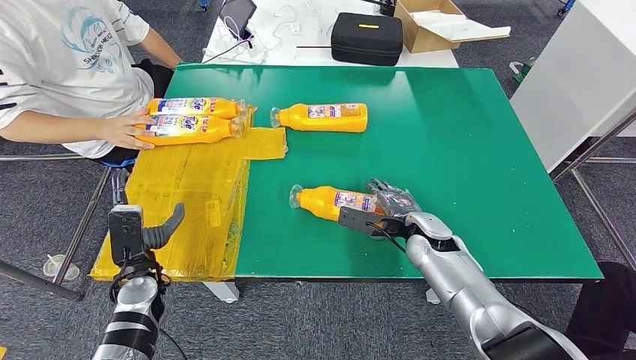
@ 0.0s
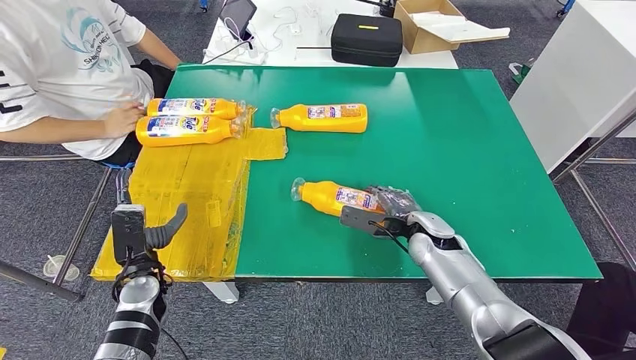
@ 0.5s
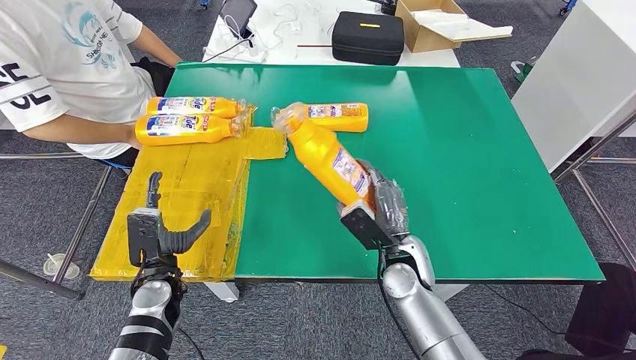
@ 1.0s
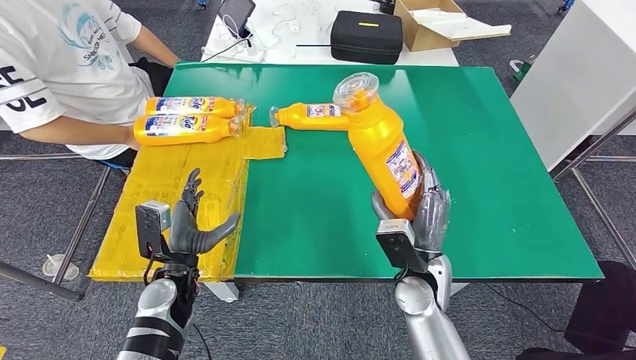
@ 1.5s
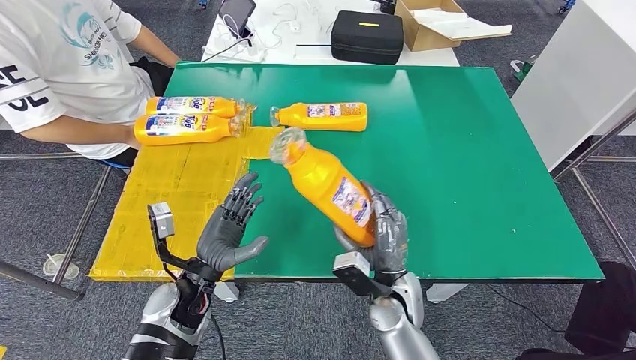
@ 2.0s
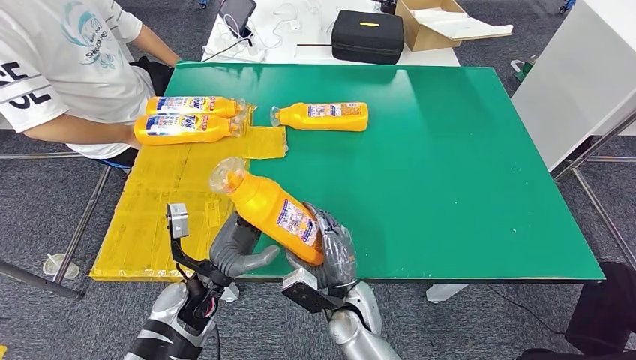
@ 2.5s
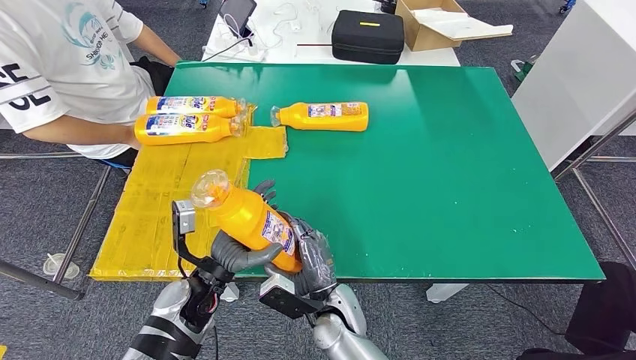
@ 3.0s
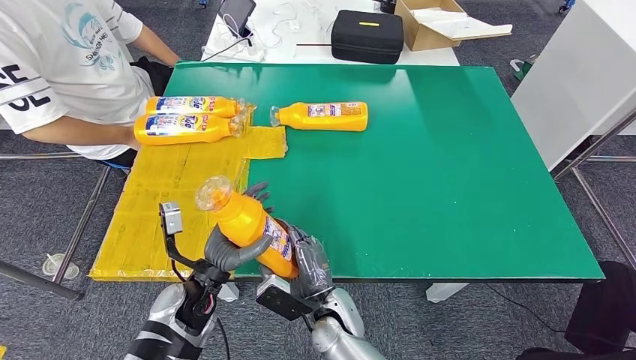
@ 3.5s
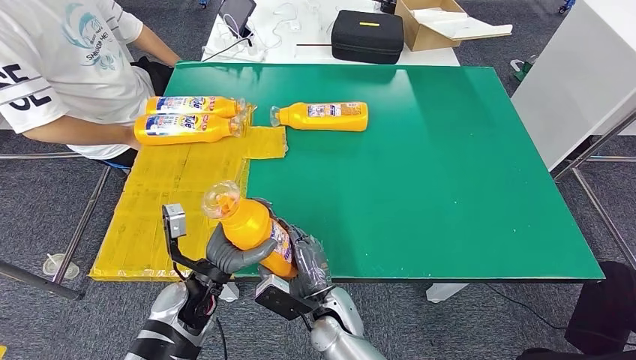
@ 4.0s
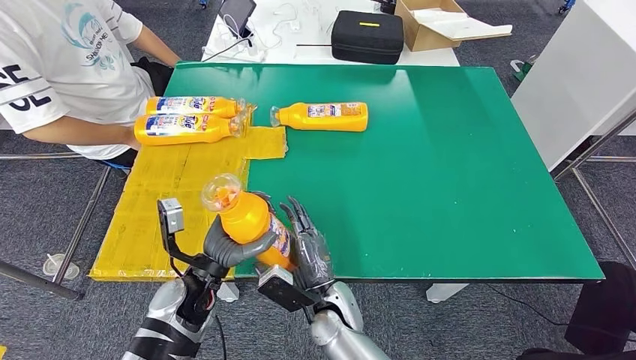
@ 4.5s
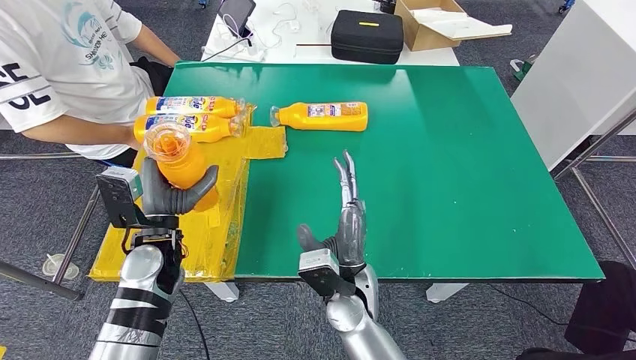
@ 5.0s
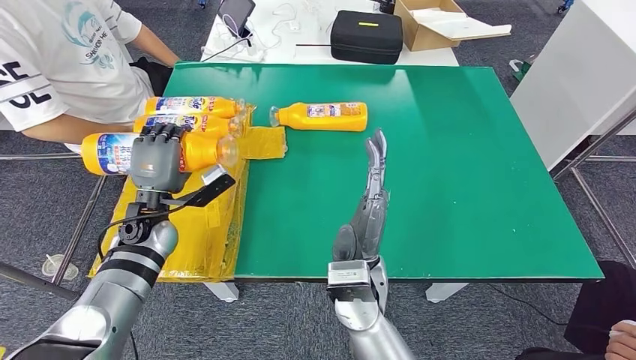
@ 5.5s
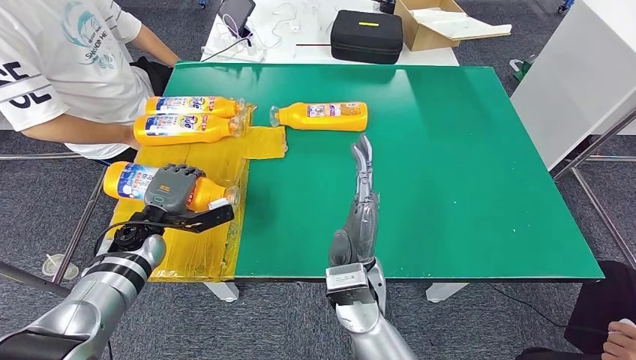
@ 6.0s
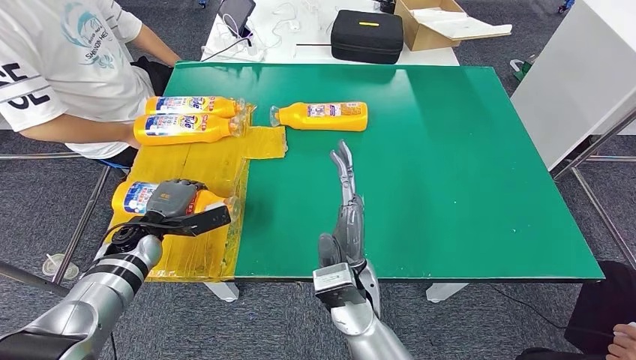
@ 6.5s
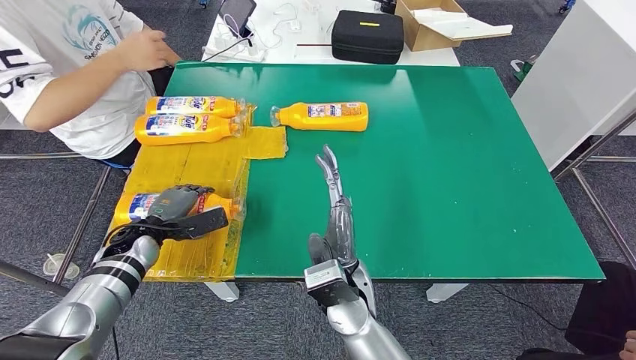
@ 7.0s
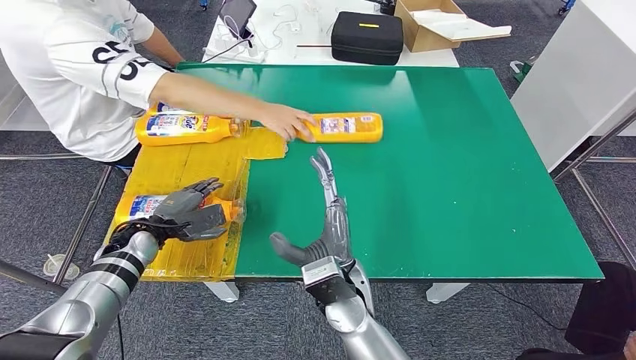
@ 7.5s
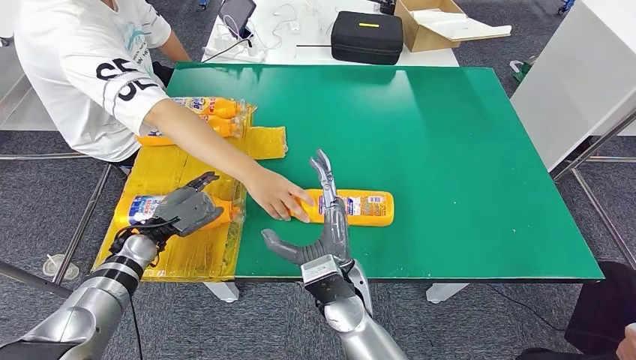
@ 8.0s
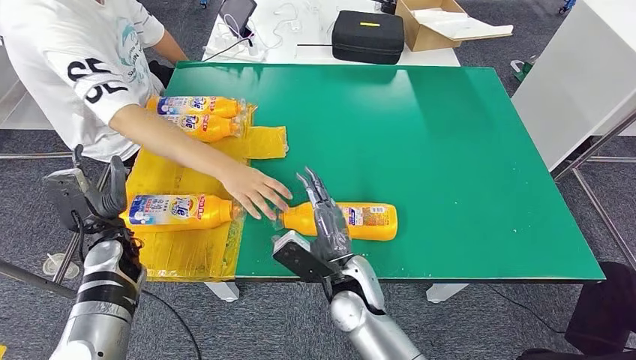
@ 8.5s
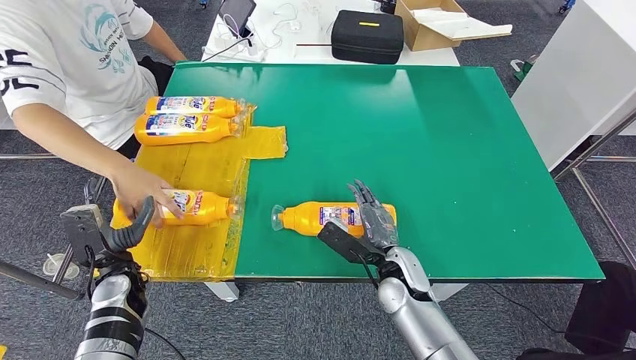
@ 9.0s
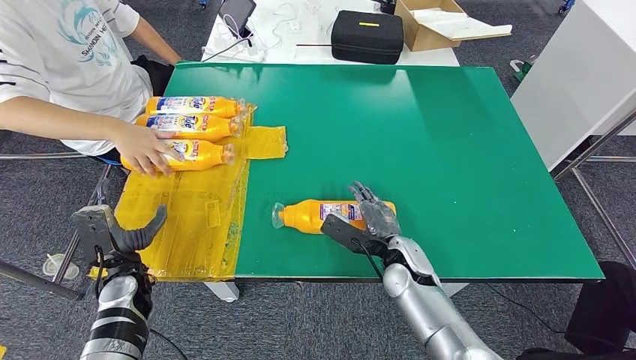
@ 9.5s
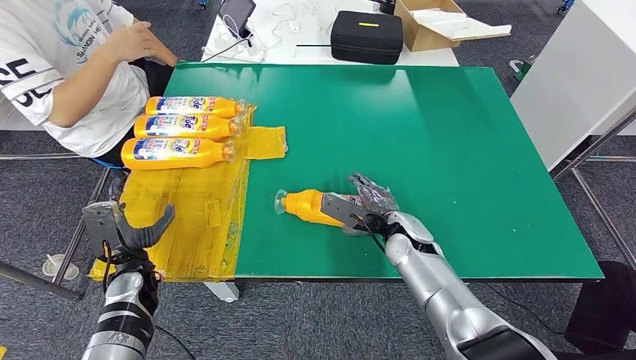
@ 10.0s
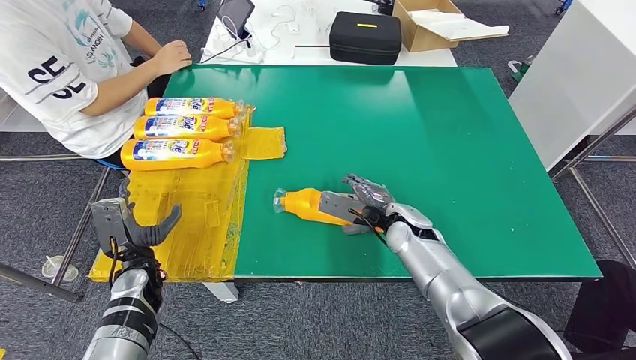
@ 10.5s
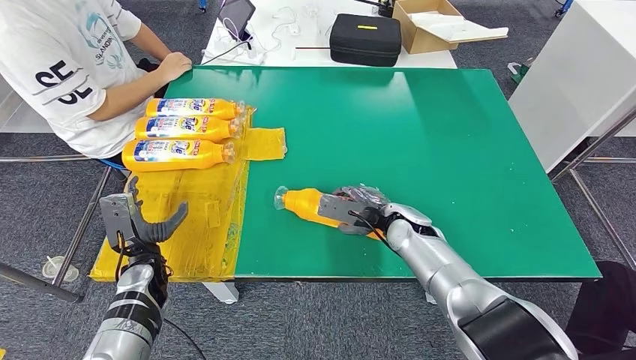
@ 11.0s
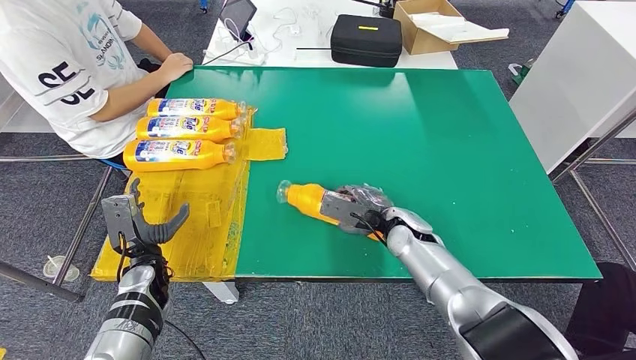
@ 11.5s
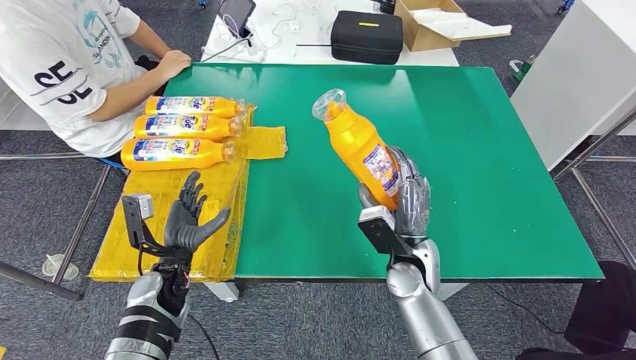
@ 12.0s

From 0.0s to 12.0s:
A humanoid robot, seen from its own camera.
Step, from 0.0s to 3.0s: Pick up the fast-moving consumer goods bottle from the table.
Step, from 3.5s to 9.5s: Flip the fast-moving consumer goods bottle to the front side.
From 2.0s to 4.0s: The right hand goes about 10 cm to the left.
From 4.0s to 6.0s: The right hand is displaced upward by roughly 15 cm; the left hand travels to the left and forward by about 20 cm.

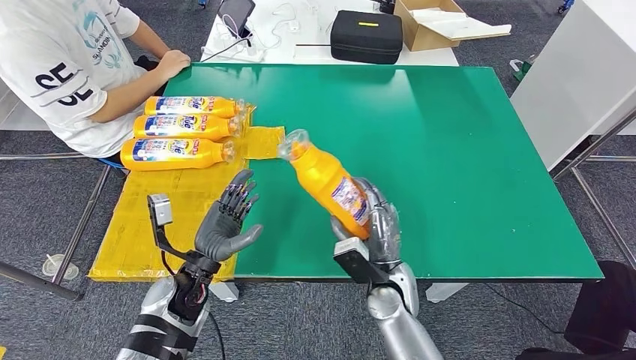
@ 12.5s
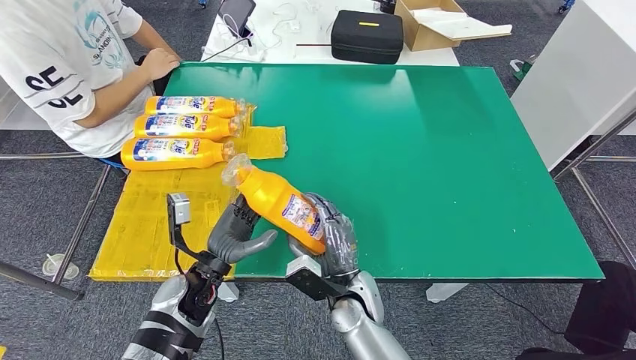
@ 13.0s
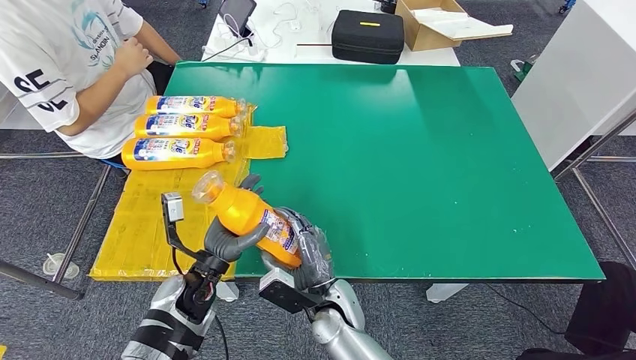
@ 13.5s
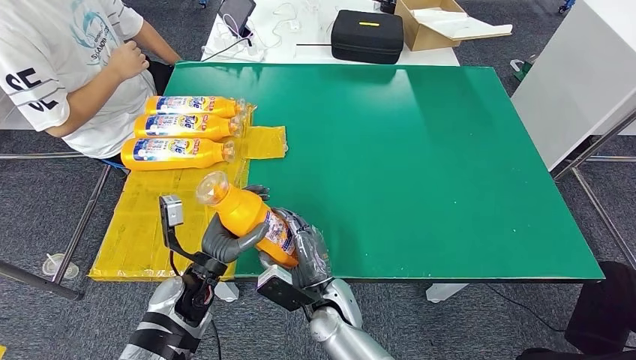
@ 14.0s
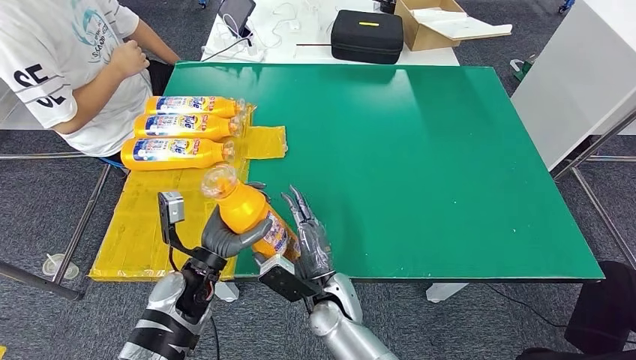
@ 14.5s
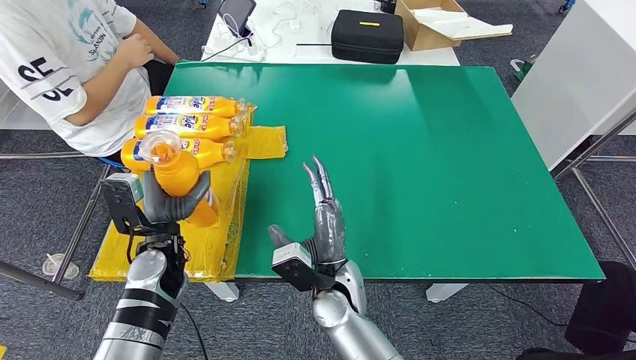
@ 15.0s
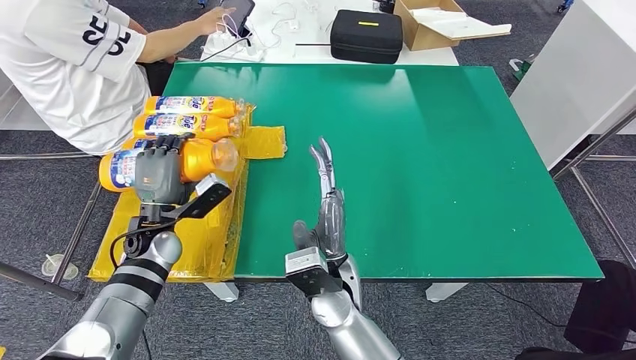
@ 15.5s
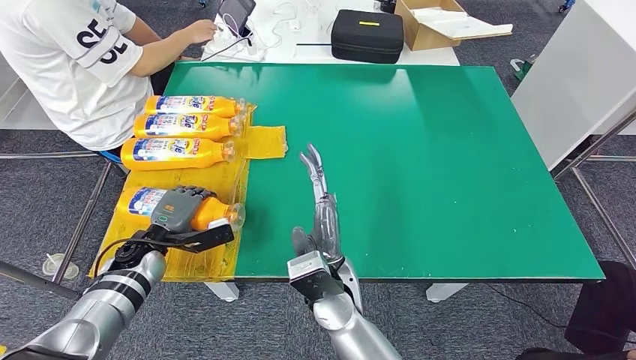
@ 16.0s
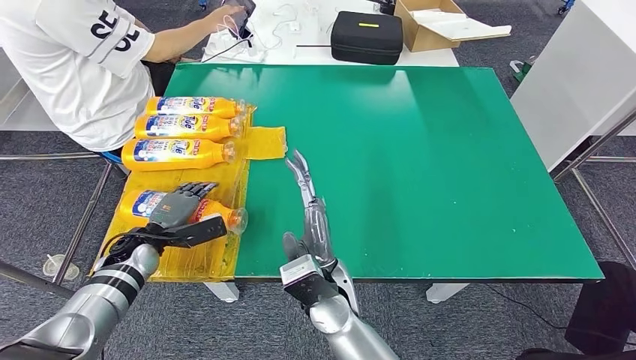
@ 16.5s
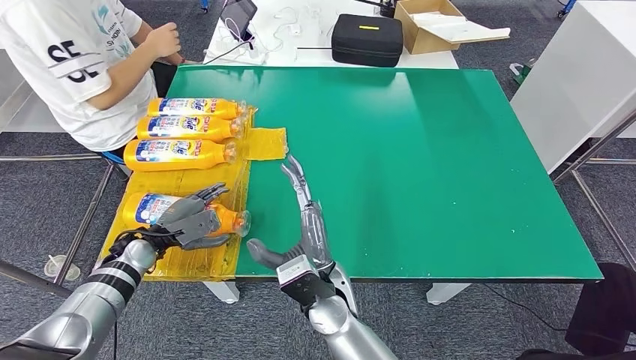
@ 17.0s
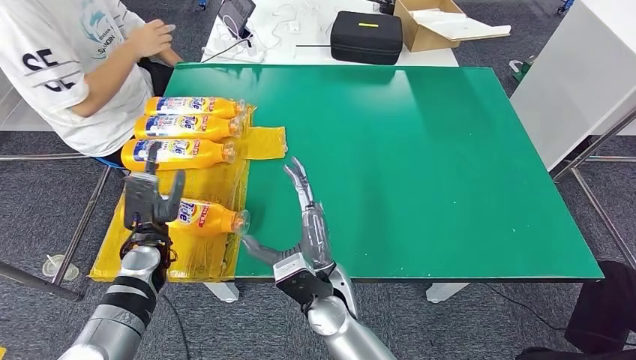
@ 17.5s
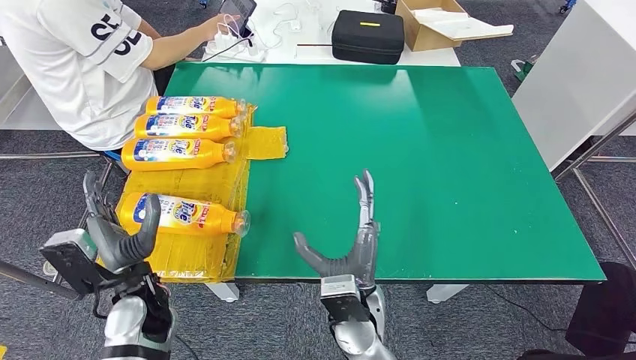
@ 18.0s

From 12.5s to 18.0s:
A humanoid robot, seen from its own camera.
Step, from 14.5s to 18.0s: Flip the fast-moving consumer goods bottle to the front side.
From 12.5s to 14.5s: The right hand moves to the left, some 10 cm.
From 16.0s to 18.0s: The right hand shifts by roughly 5 cm; the left hand moves backward, to the right and upward, approximately 15 cm.

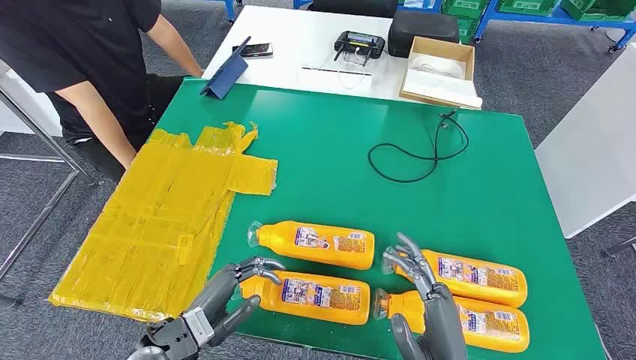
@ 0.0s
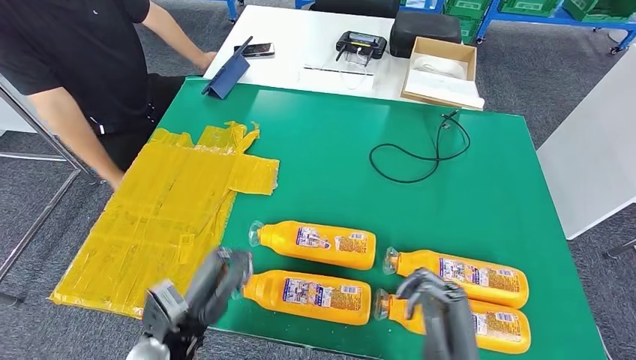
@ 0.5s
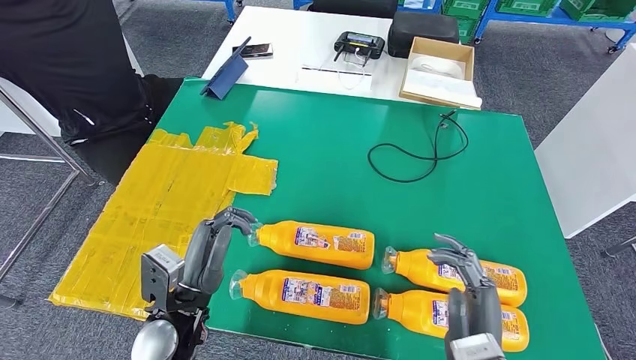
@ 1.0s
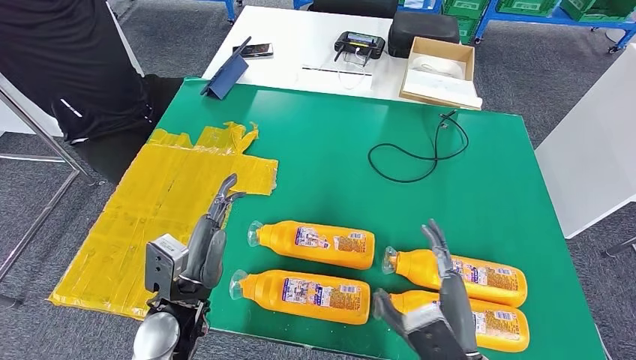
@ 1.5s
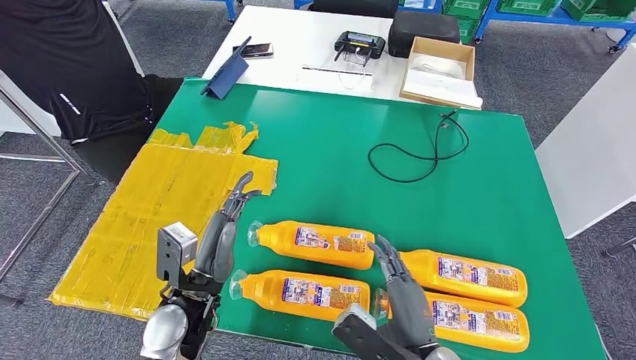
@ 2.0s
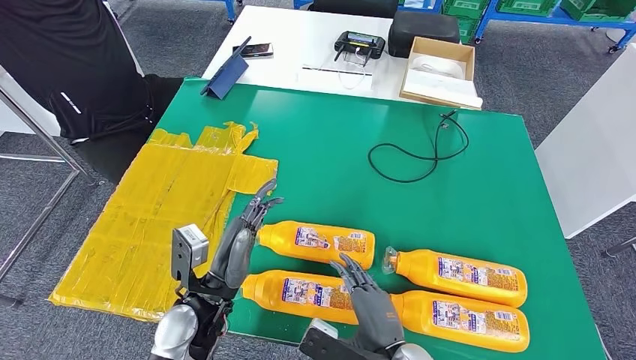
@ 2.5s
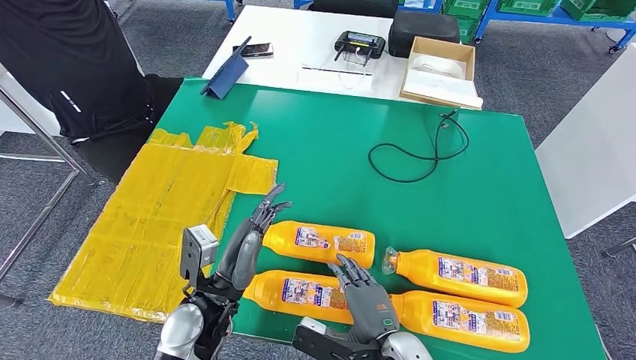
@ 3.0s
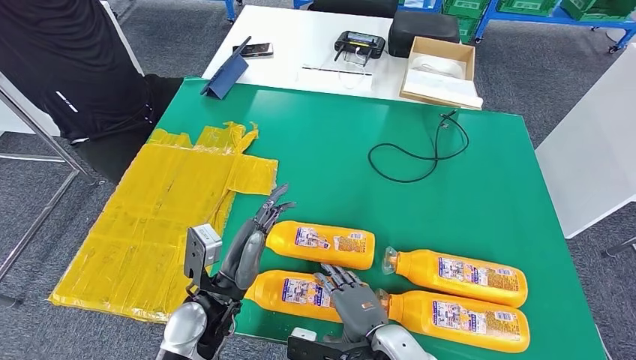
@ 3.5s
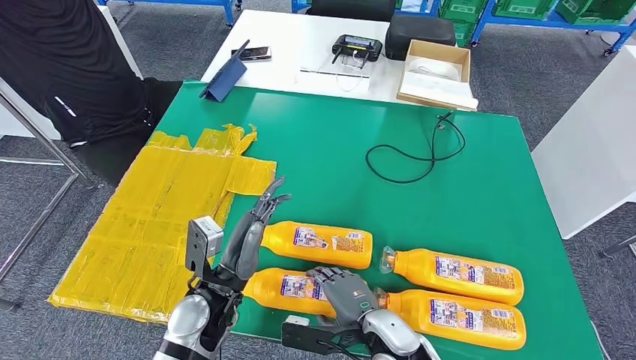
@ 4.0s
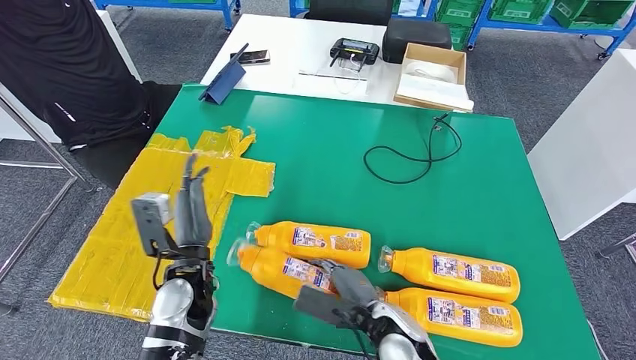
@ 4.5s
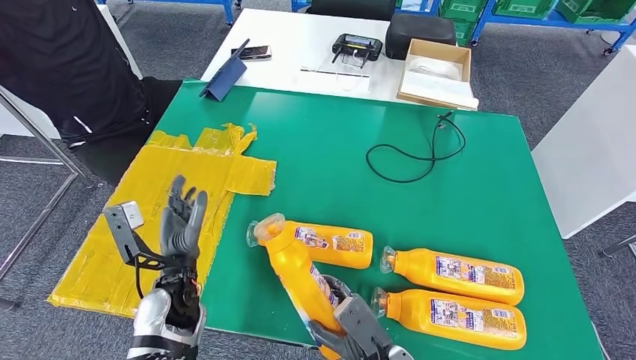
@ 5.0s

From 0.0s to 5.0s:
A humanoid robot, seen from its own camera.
Step, from 0.0s to 4.5s: Take the fast-moving consumer goods bottle from the table.
From 2.5s to 5.0s: The left hand goes roughly 5 cm to the left. The right hand is displaced downward by approximately 5 cm.
